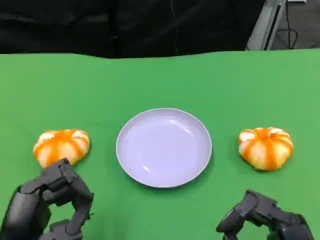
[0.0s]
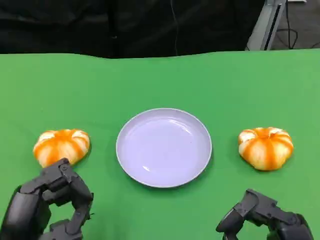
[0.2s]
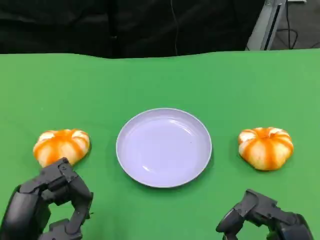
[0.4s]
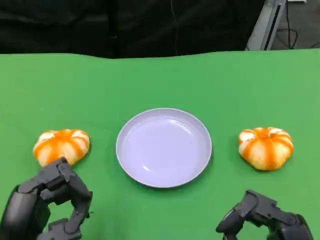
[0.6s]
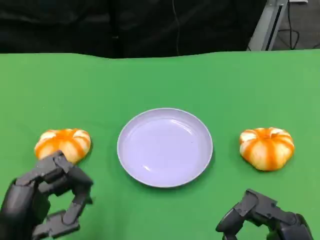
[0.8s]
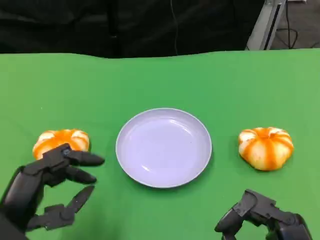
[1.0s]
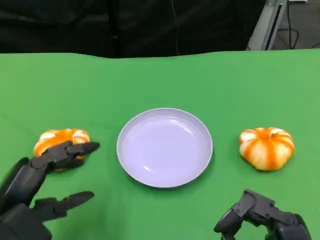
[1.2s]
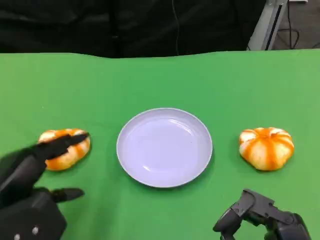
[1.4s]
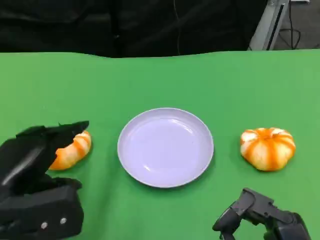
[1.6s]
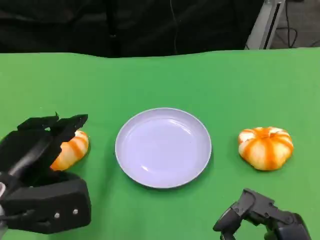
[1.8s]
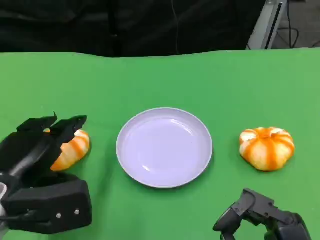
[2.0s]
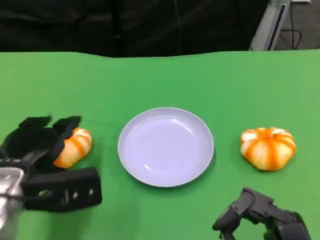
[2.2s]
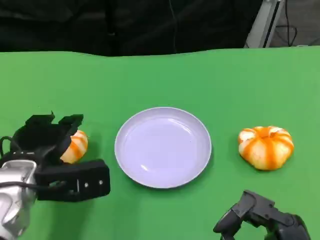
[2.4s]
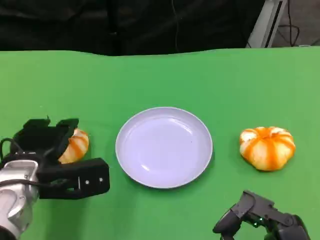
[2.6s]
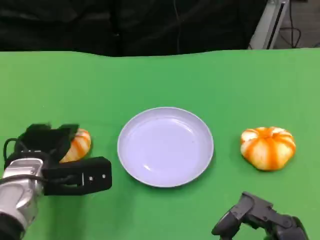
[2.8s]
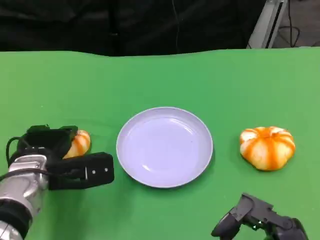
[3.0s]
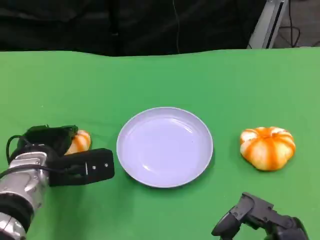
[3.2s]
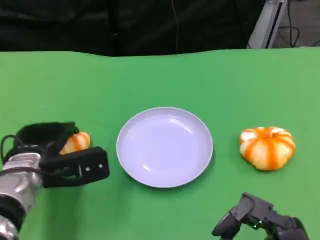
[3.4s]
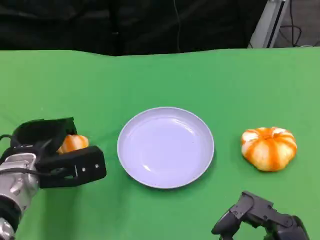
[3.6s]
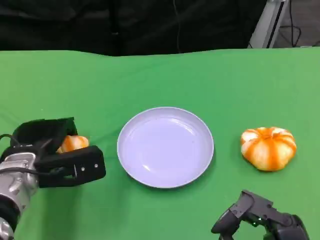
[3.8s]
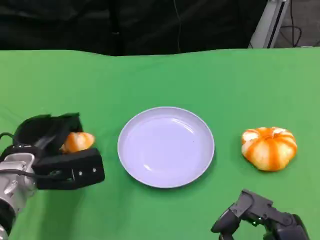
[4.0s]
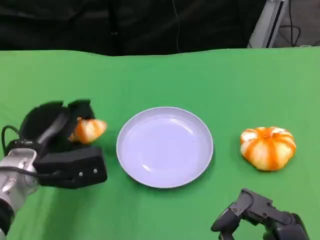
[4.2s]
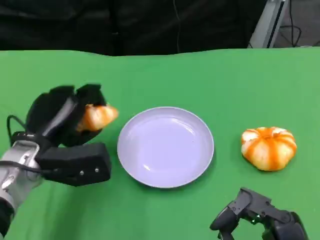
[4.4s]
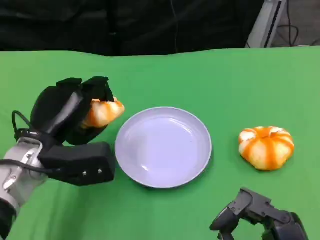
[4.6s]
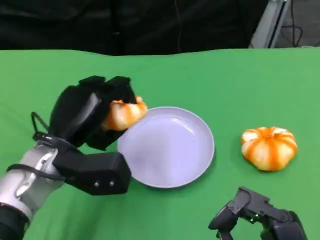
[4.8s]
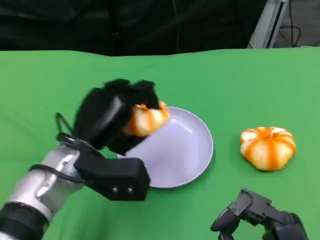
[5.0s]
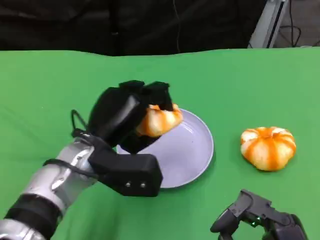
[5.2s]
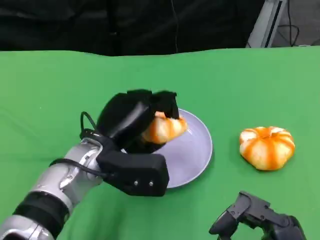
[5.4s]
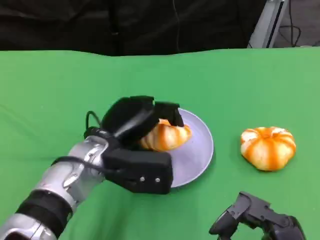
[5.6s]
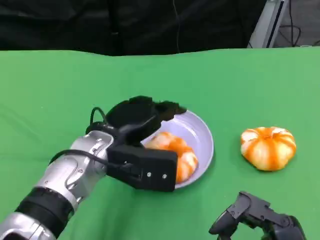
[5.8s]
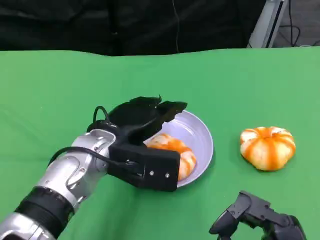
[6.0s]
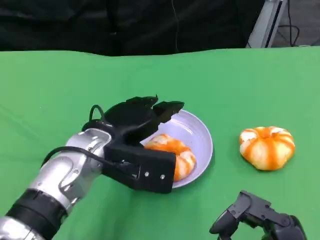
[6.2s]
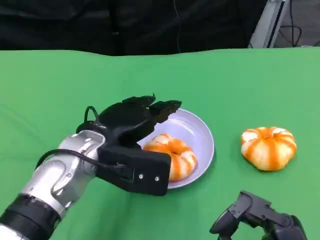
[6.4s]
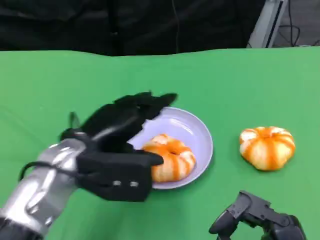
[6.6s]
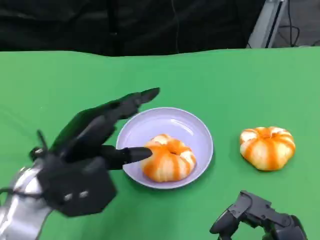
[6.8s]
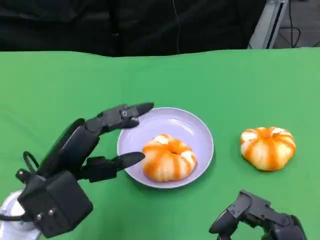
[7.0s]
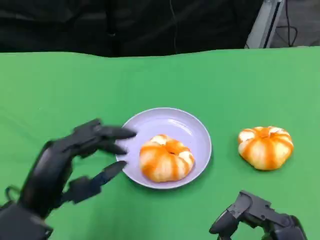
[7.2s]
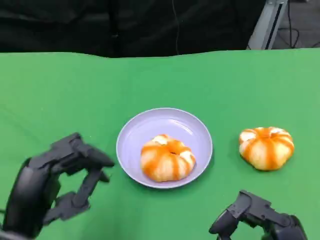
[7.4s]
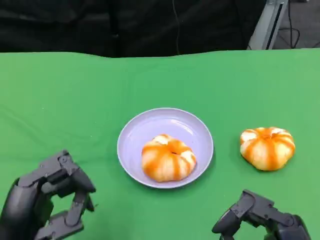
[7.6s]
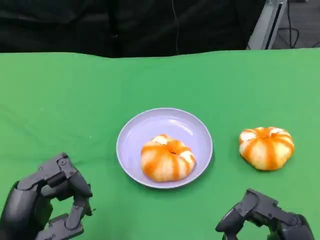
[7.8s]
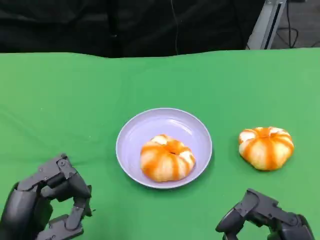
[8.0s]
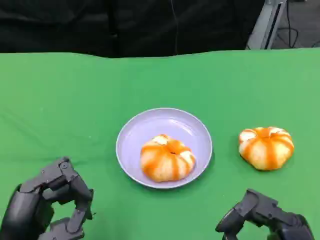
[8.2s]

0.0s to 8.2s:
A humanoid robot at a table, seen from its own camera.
Task of the whole recording: Grasp the bread from the table and place it into the plate.
0.0s to 1.6s: The left hand is displaced forward by about 5 cm.
1.6s to 3.2s: The left hand shifts about 10 cm forward and downward.
3.2s to 5.0s: The left hand goes approximately 5 cm to the right.
6.6s to 8.2s: The left hand goes roughly 15 cm backward, to the left and downward.

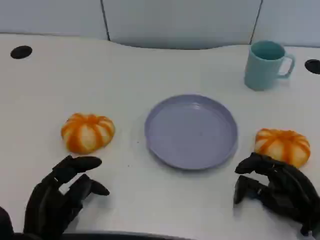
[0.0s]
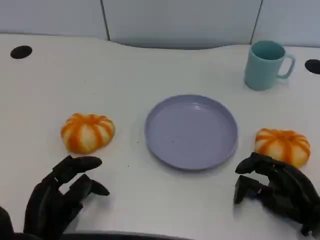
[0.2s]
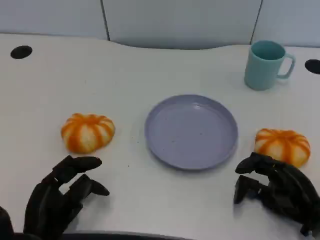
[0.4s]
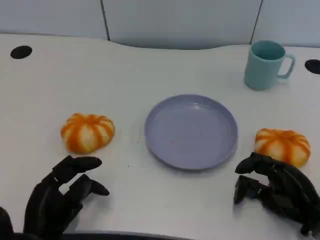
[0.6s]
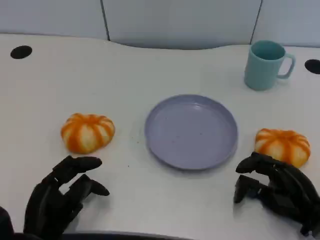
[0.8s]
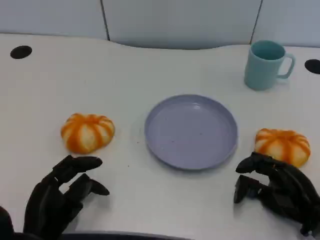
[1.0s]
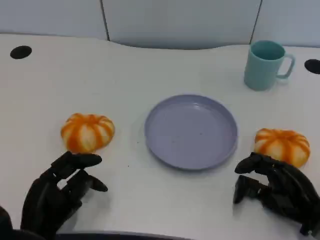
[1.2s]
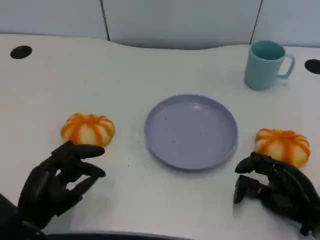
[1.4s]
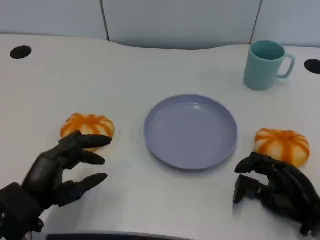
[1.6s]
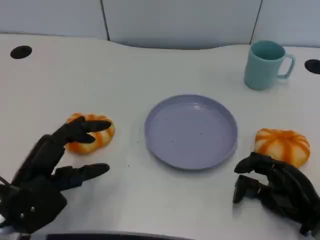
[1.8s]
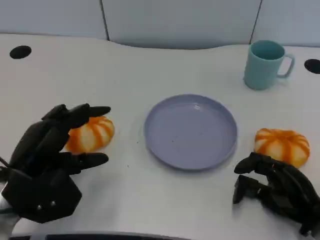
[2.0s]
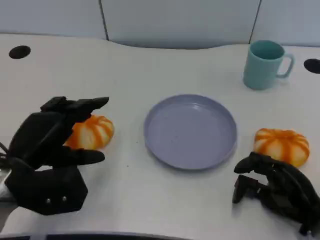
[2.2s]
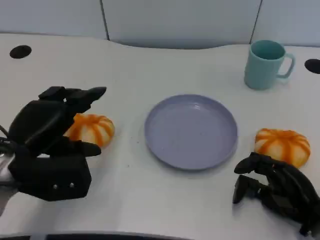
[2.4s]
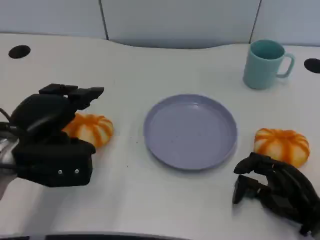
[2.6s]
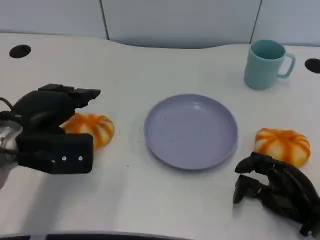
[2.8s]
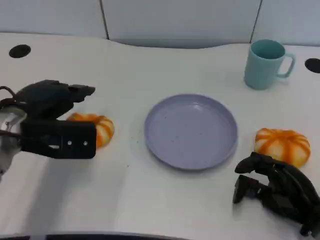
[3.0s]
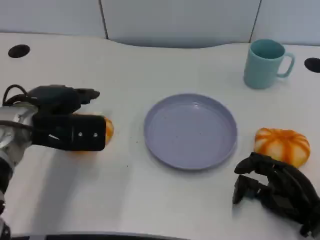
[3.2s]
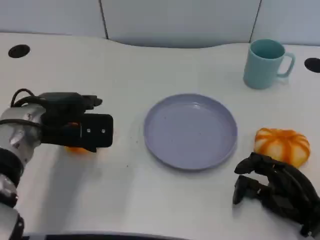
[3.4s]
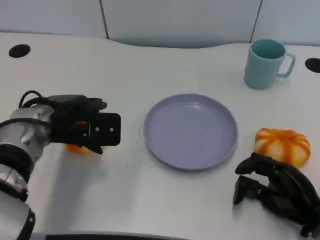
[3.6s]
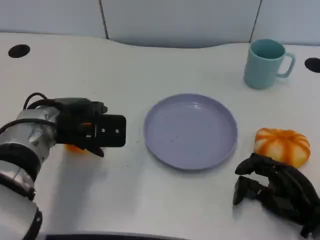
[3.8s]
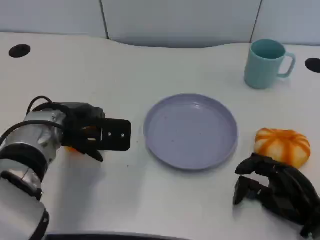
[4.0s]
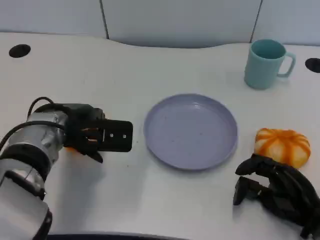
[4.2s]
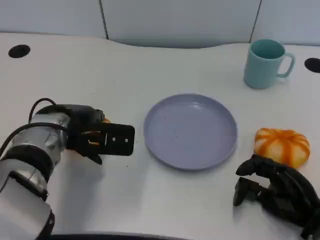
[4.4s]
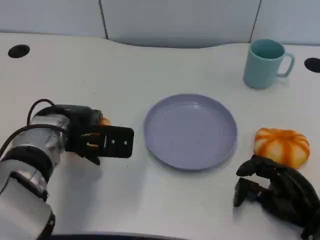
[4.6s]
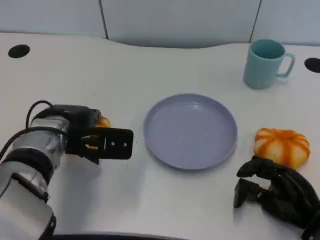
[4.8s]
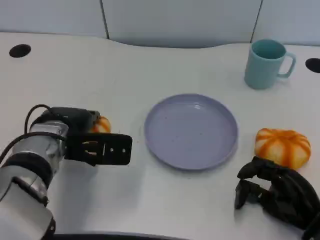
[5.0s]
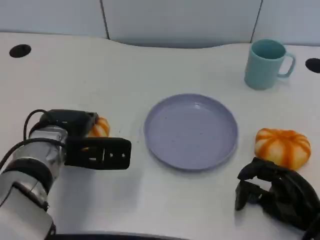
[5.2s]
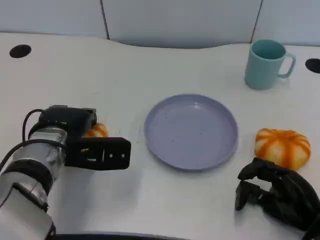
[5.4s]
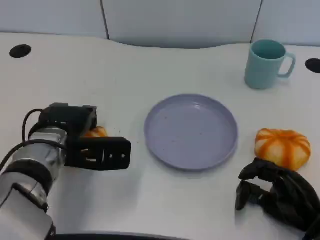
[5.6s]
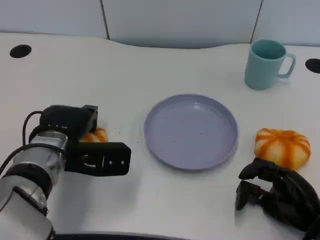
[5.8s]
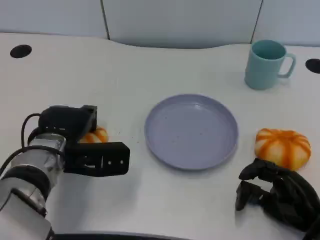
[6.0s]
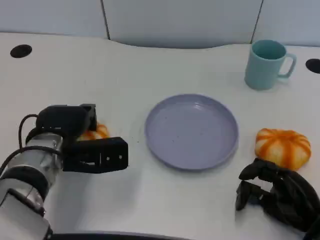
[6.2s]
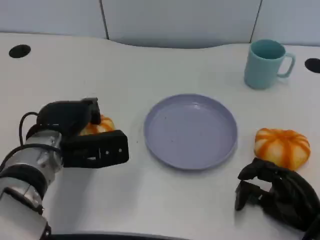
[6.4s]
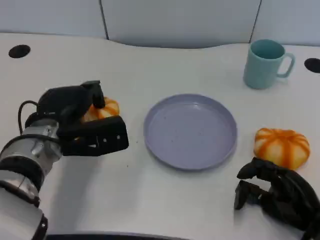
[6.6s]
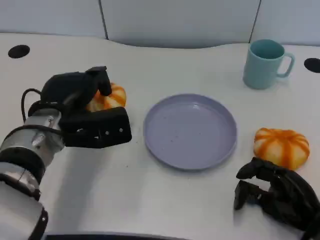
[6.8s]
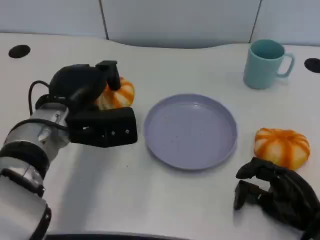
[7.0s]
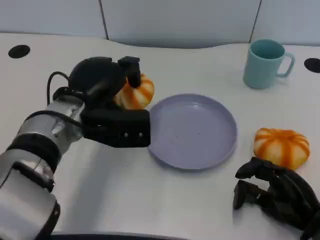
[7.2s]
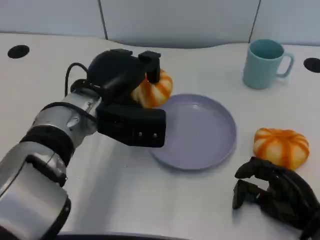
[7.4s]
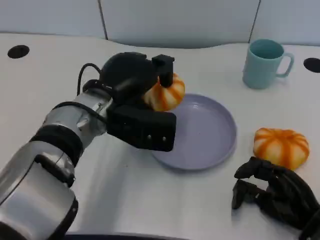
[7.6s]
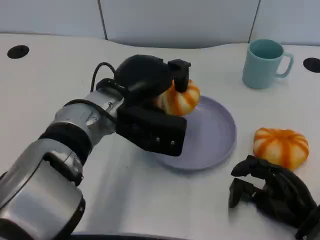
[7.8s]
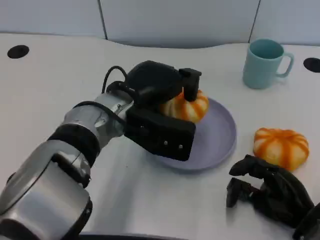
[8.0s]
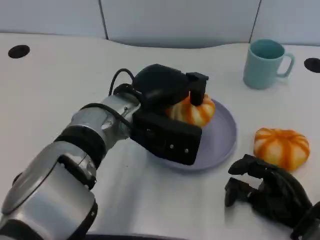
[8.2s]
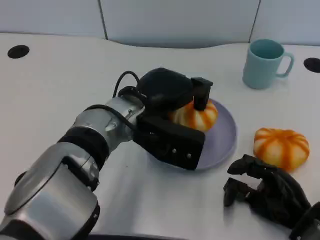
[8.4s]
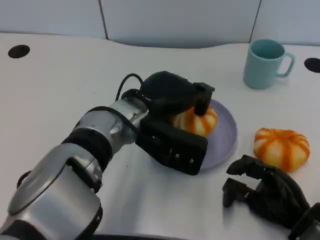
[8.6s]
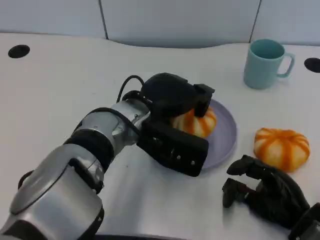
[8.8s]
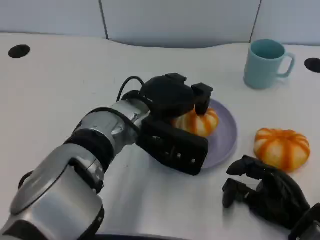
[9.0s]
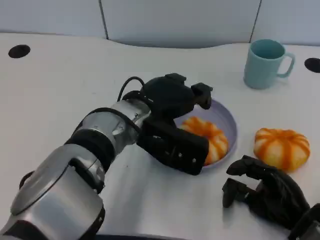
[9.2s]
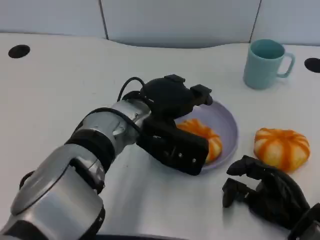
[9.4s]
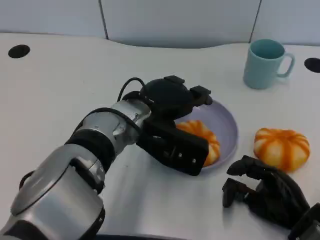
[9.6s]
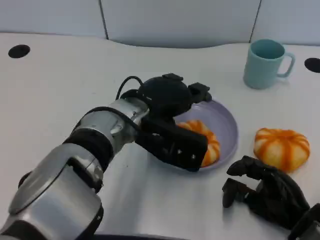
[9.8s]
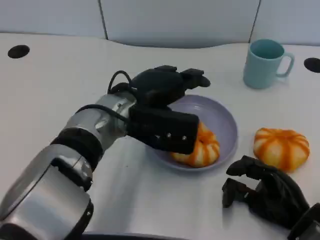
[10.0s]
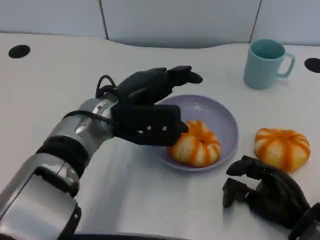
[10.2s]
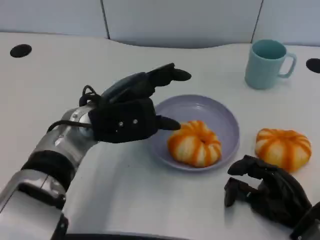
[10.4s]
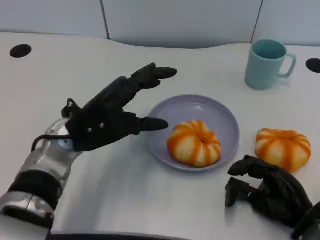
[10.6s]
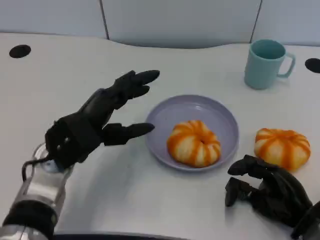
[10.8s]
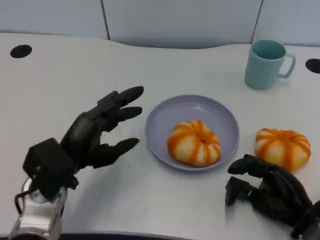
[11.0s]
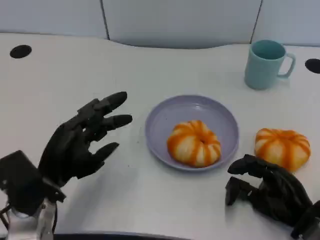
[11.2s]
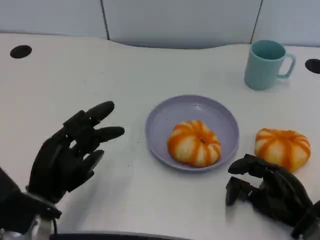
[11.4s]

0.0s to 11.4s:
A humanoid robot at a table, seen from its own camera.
Task of the whole recording: Grasp the bread from the table and place it into the plate.
1.4s to 2.8s: The left hand shifts roughly 15 cm forward and upward.
2.8s to 4.2s: The left hand travels to the right by approximately 5 cm.
4.2s to 5.6s: The hands make only small movements.
5.6s to 7.2s: The left hand travels upward by some 5 cm.
7.2s to 8.6s: The left hand shifts approximately 10 cm to the right.
8.6s to 10.0s: The hands make only small movements.
10.0s to 11.4s: The left hand is displaced to the left, backward and downward by approximately 20 cm.

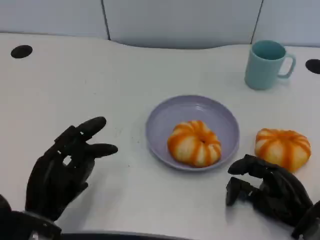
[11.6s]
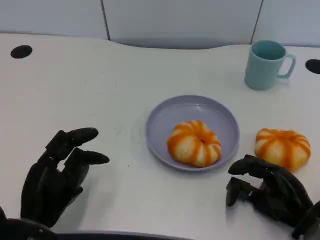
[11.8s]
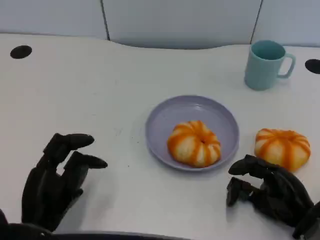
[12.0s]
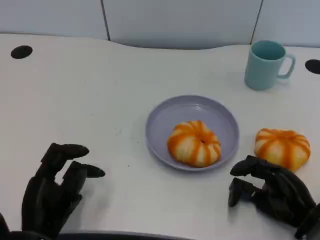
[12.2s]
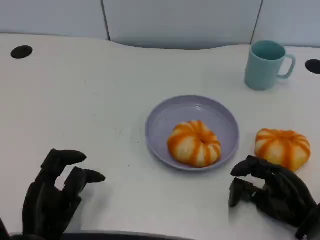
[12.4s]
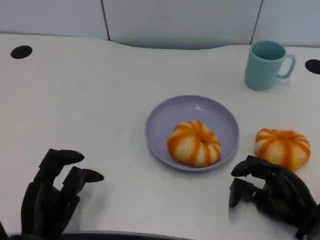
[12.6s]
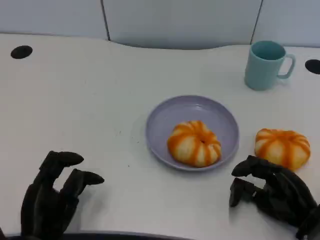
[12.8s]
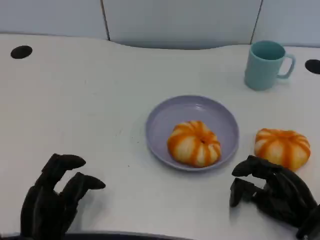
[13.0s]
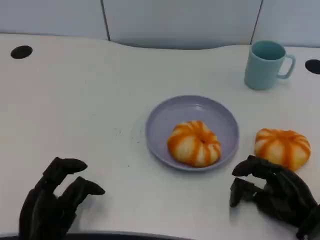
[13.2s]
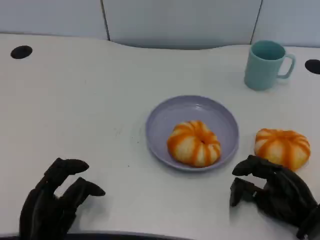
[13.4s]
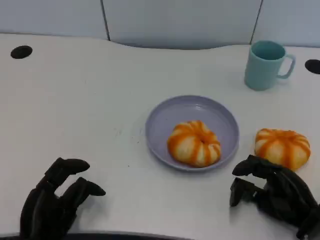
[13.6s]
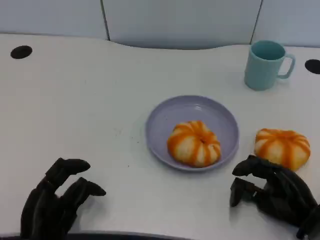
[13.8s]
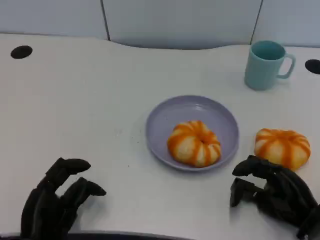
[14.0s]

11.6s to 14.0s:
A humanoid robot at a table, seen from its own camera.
Task of the whole recording: Grasp the bread from the table and place it into the plate.
11.6s to 14.0s: There are only small adjustments of the hands.
